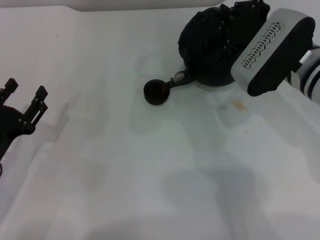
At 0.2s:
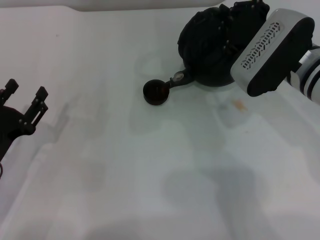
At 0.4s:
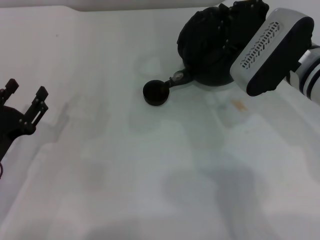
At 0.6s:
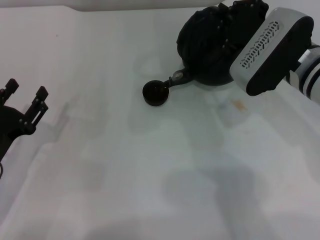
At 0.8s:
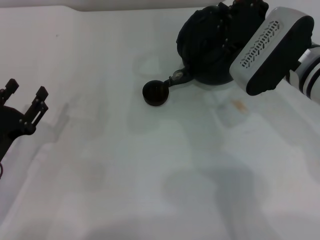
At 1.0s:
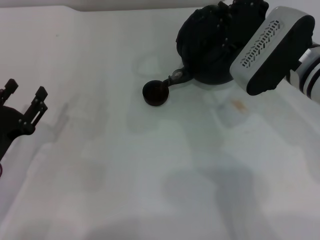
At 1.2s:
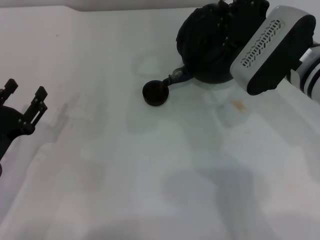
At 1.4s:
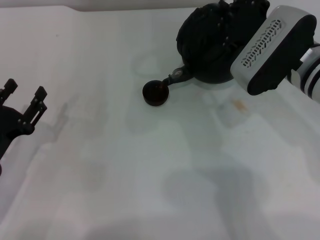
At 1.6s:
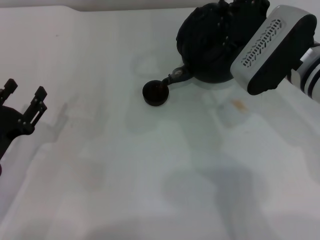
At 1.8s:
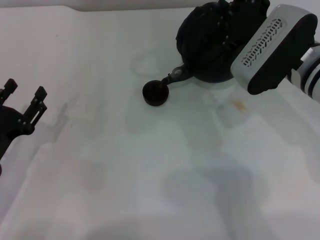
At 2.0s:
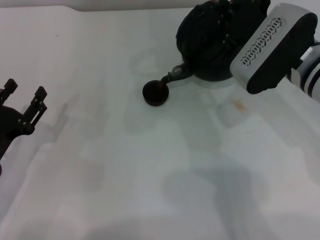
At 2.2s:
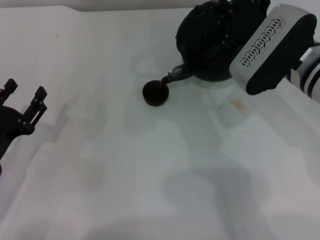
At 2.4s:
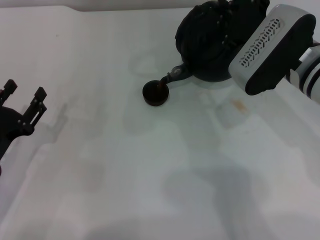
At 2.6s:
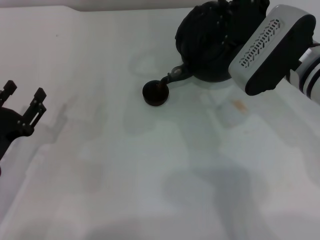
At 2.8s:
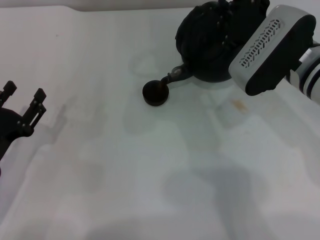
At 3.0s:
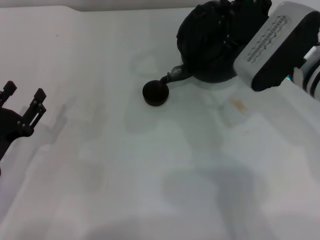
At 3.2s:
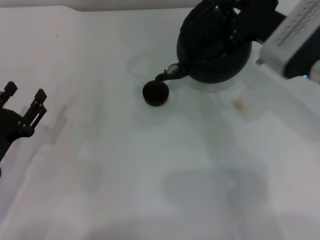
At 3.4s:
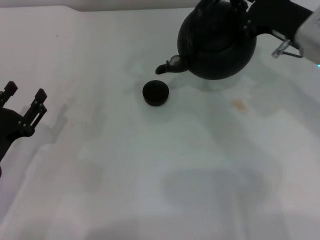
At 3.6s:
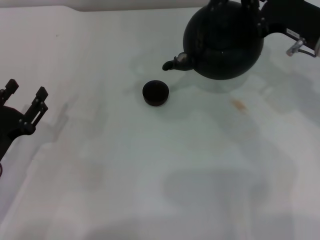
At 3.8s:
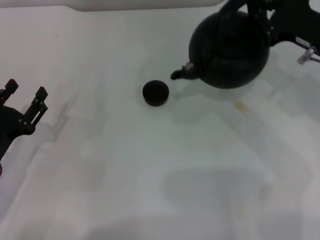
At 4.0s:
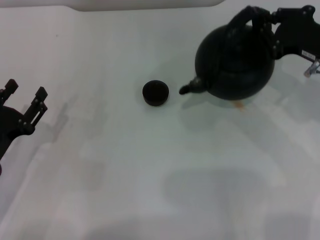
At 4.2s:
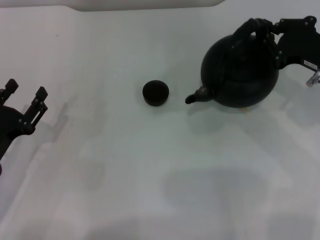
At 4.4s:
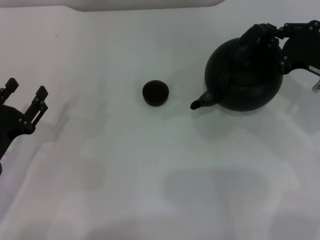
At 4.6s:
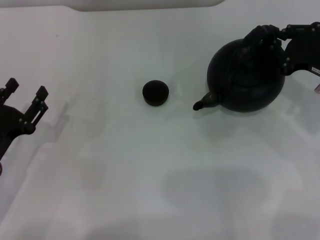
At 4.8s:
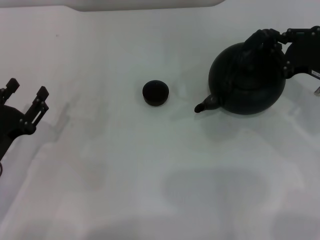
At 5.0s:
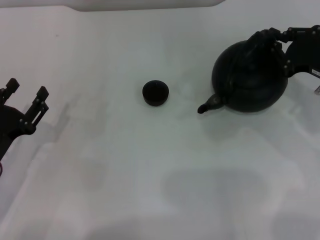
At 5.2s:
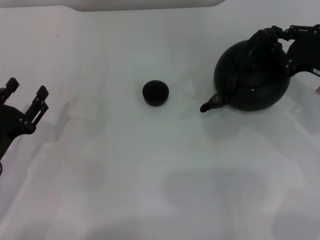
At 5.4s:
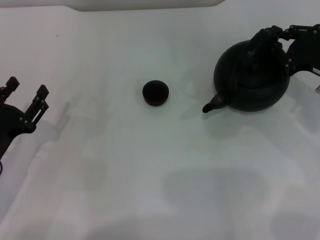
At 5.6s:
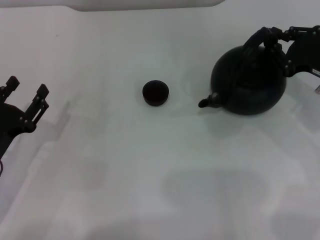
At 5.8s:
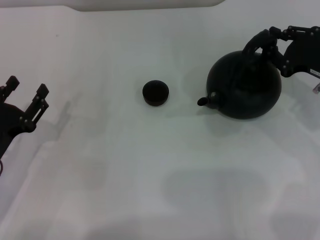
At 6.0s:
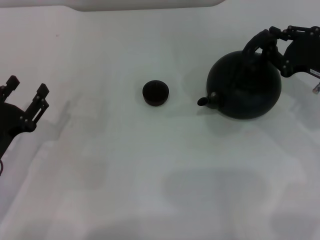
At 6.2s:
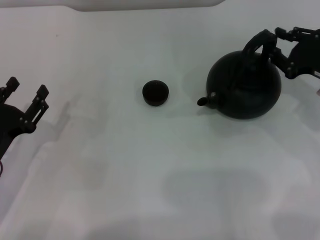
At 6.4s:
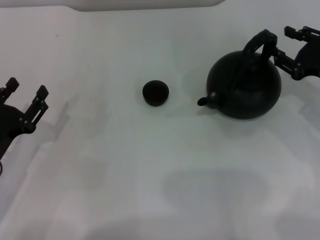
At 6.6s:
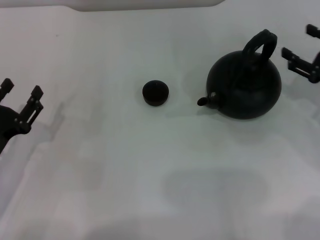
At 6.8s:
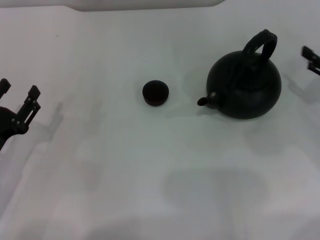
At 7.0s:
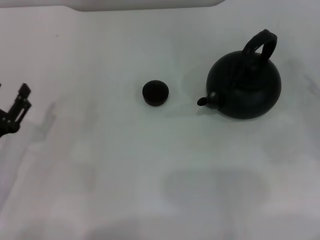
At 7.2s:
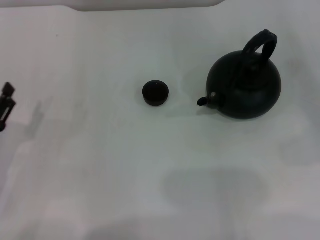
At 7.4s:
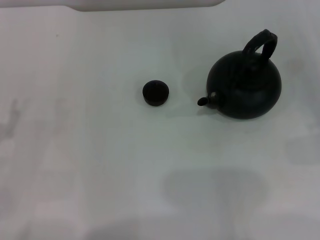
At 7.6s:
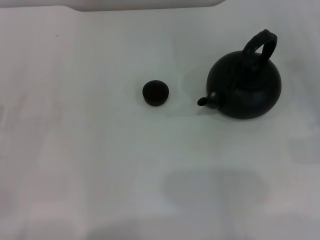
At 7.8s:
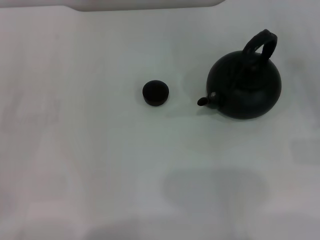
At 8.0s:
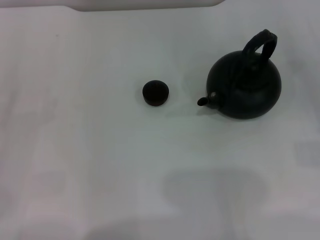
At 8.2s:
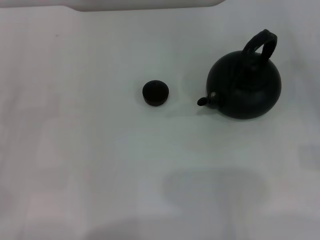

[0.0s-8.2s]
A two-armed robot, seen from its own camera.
Task of the whole recording: Grasp the handle of the teapot with one hand and pour tea into the teacup.
Step, 0.0s to 3.2s: Pour tea into the teacup with the right gripper.
Step, 3.6s to 6.4s: Put down the teapot with the right gripper.
0.0s to 1.6s: The two grippers keep their place.
1.6s to 3.2s: The grippers make only small movements.
3.2s to 5.0s: The right gripper goes approximately 10 cm to the right.
5.0s to 6.6s: The right gripper opens up.
6.6s to 8.2s: The left gripper shifts approximately 5 cm to the left, while the right gripper heads backward and to the right, covering roughly 10 cm.

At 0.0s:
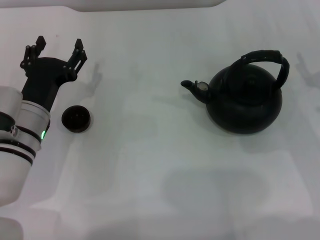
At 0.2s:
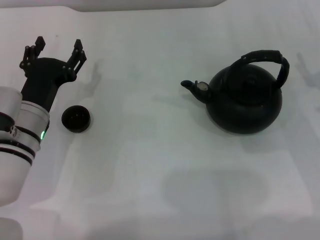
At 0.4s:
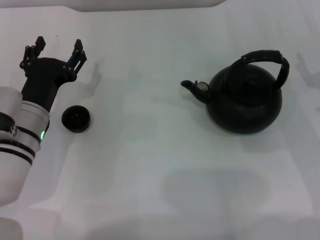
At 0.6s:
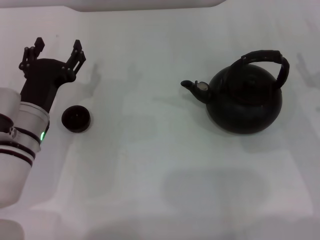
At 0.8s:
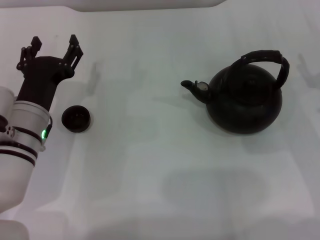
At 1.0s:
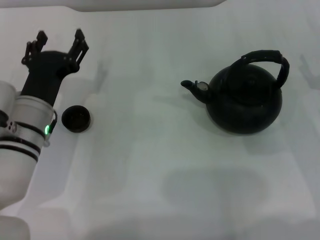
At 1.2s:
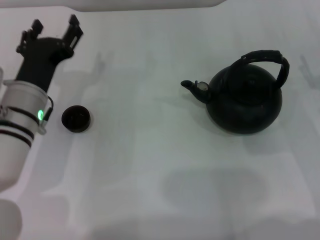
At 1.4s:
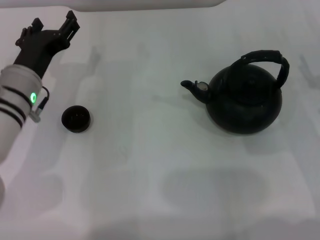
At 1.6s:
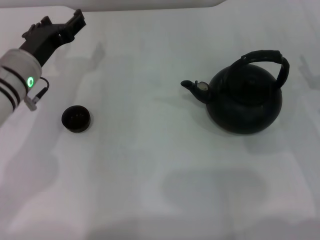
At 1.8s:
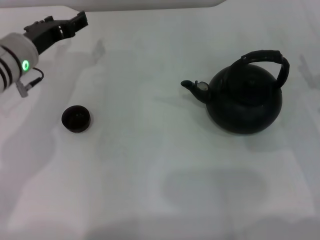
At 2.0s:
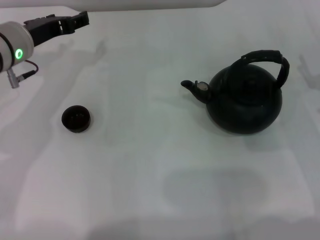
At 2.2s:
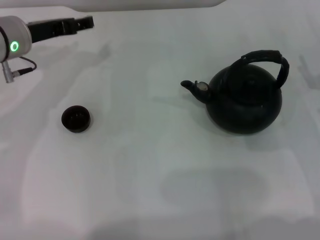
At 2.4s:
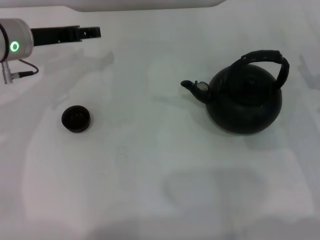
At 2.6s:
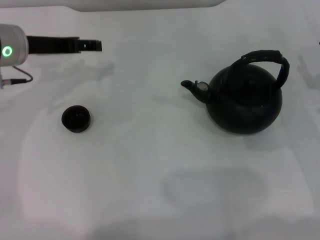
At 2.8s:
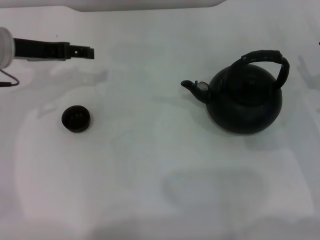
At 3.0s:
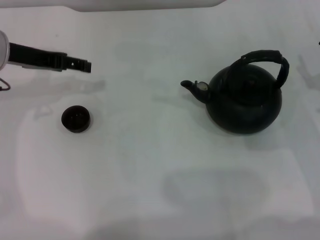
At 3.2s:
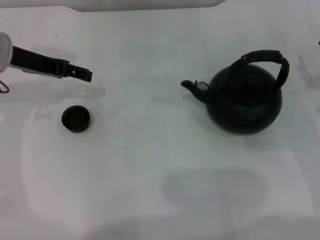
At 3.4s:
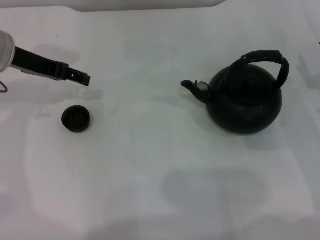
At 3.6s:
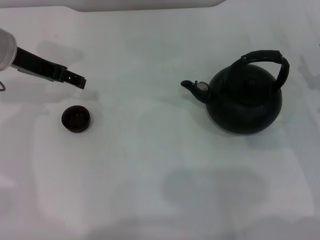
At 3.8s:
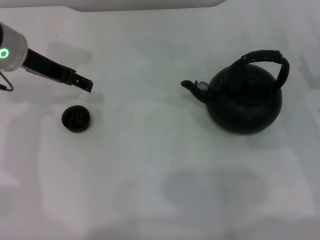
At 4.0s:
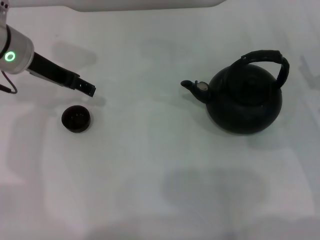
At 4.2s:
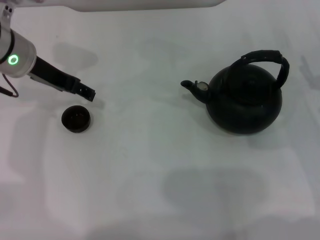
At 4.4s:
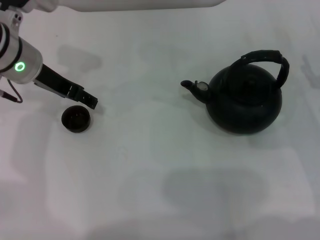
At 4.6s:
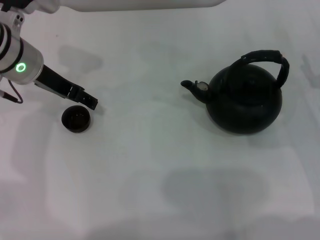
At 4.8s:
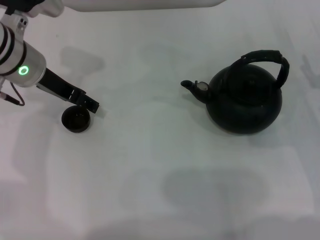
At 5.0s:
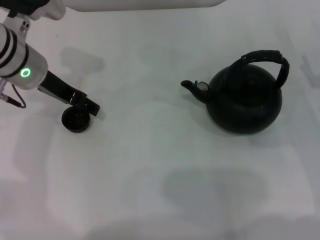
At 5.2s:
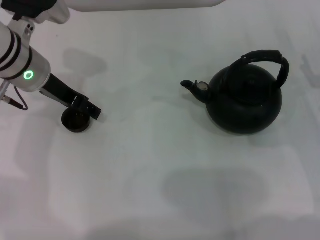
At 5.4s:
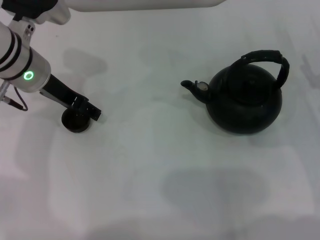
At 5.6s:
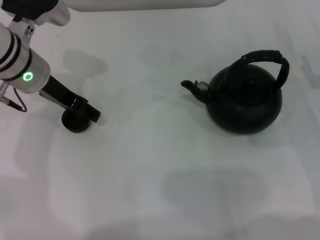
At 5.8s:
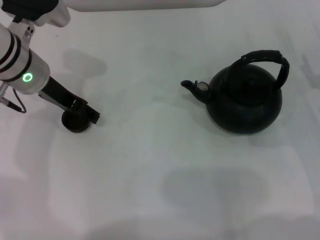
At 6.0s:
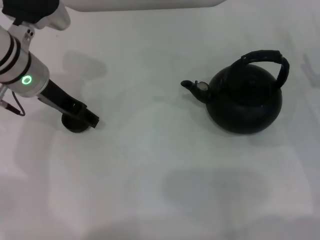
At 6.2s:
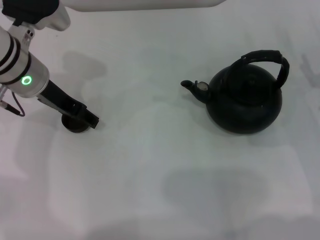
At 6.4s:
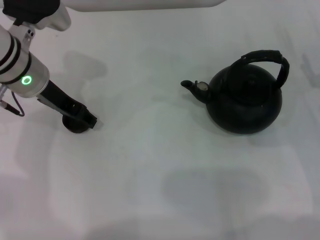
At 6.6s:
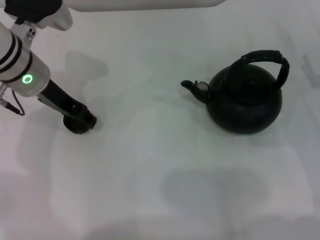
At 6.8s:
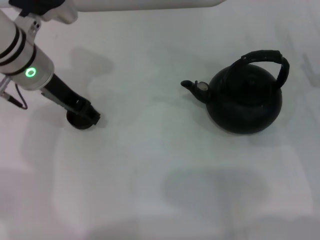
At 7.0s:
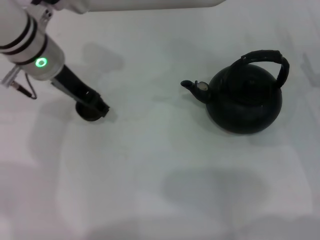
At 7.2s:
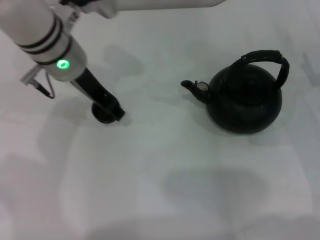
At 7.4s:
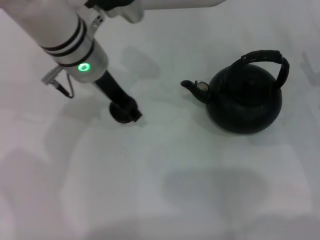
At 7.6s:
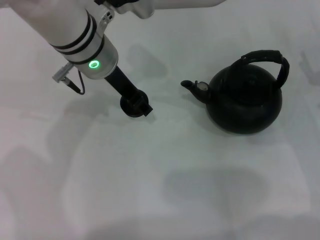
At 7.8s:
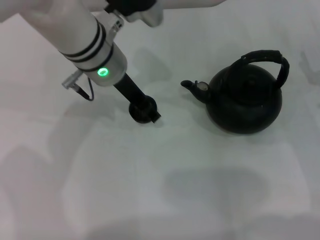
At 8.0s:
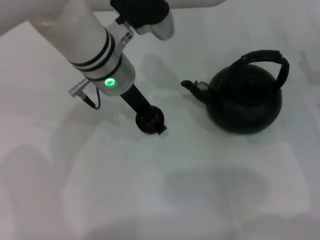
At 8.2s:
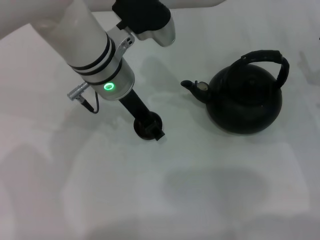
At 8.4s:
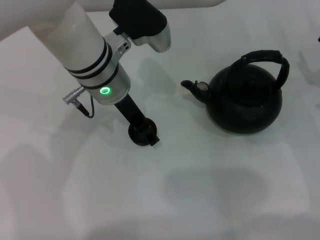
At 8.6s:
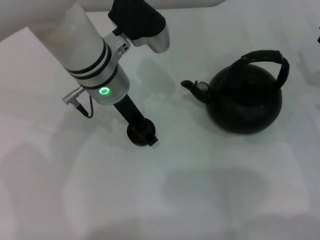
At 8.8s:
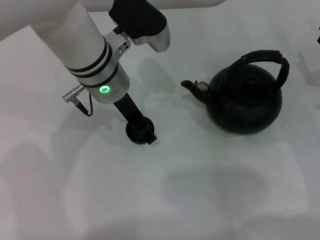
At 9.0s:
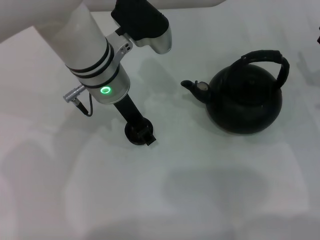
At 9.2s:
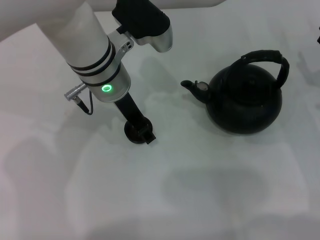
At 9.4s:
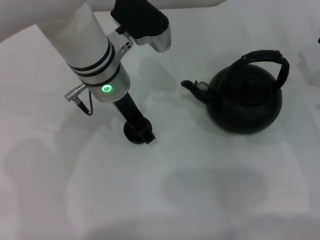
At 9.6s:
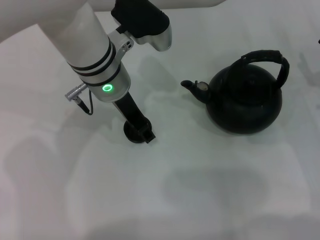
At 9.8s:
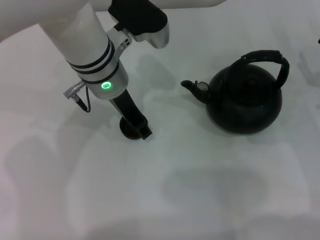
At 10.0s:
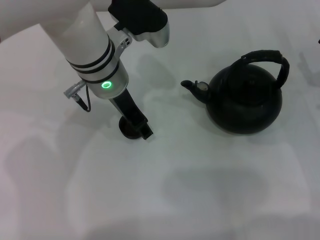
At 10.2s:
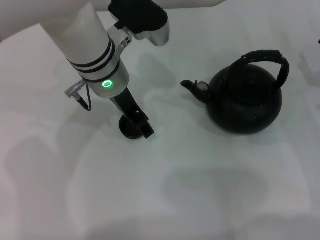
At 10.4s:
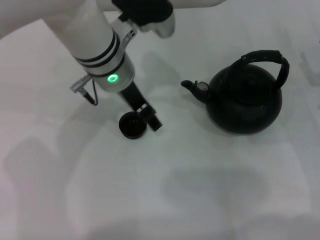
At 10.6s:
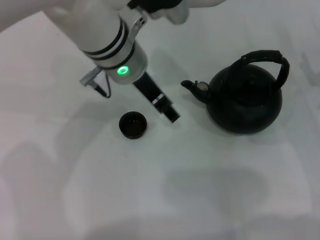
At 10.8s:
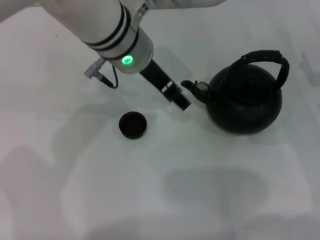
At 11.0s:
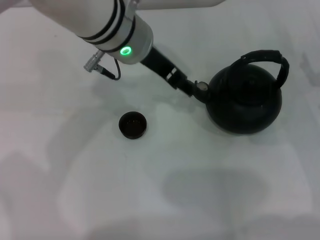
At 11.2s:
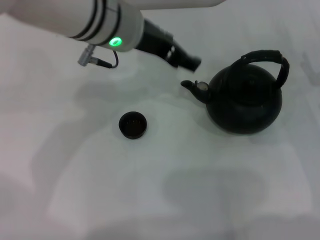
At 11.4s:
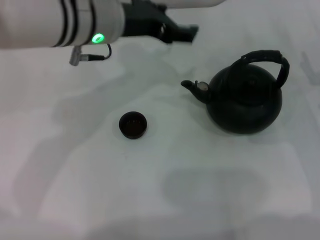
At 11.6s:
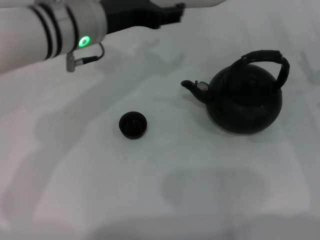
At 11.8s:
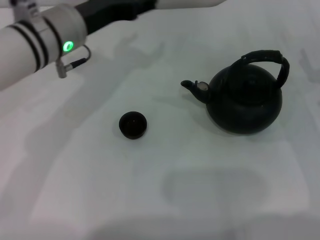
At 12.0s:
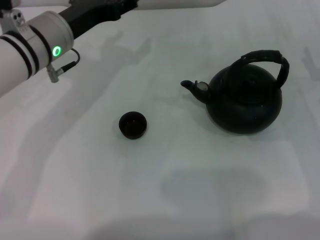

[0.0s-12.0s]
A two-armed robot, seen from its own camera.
Task of the whole recording: Grasp the handle of the teapot with one hand and pour tea into the teacup.
Step, 0.0s to 6.8s: Pick up the teacup with the left gripper.
Step, 7.0s to 10.6s: Place the teacup in the center of view with the left gripper.
0.0s to 1.6s: The left gripper moves upward and forward, roughly 10 cm.
1.6s to 3.0s: The left gripper shifts approximately 5 cm upward.
4.4s to 6.0s: The grippers move only a little.
6.0s to 7.6s: The left gripper travels to the right by approximately 10 cm, and closes its fingers.
7.6s to 9.0s: The grippers stay close to where they were, moving slightly.
9.0s to 10.4s: The left gripper opens its fingers.
10.4s to 12.0s: The left gripper travels to the left by about 10 cm.

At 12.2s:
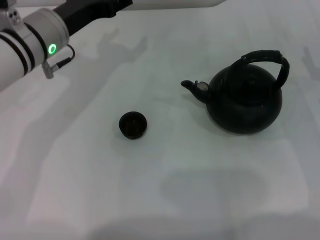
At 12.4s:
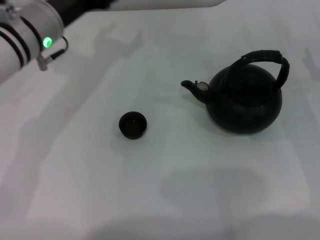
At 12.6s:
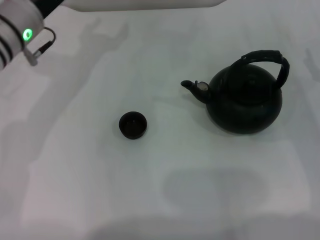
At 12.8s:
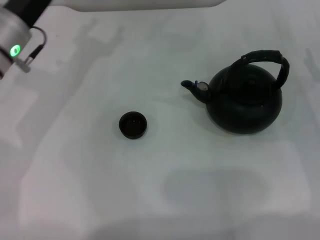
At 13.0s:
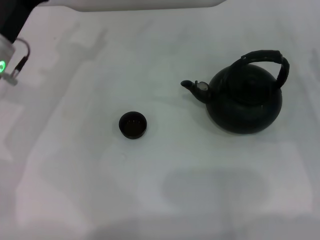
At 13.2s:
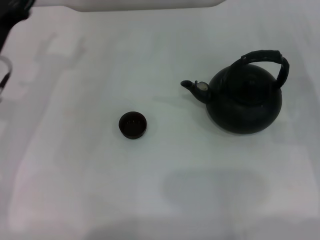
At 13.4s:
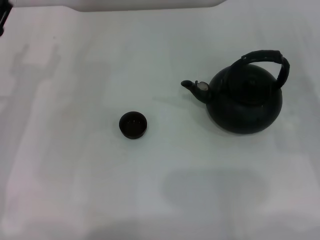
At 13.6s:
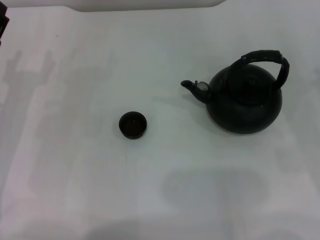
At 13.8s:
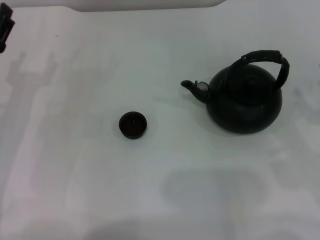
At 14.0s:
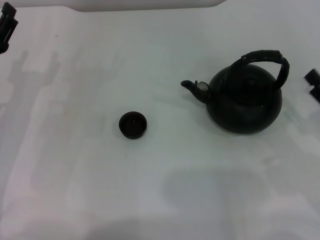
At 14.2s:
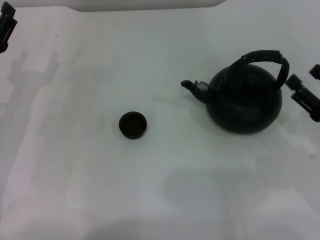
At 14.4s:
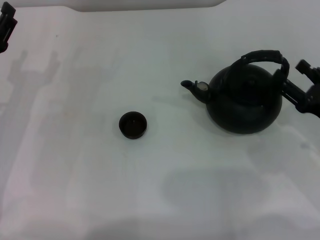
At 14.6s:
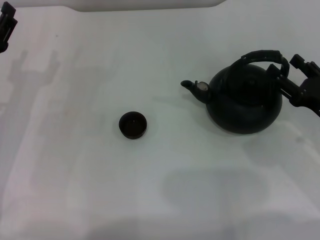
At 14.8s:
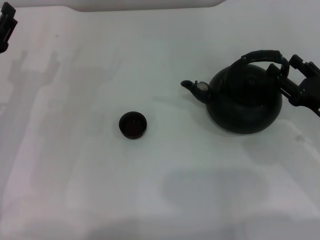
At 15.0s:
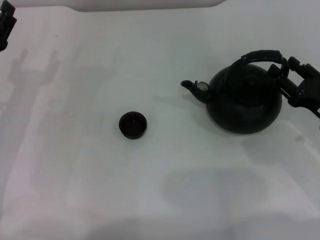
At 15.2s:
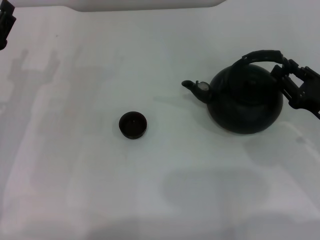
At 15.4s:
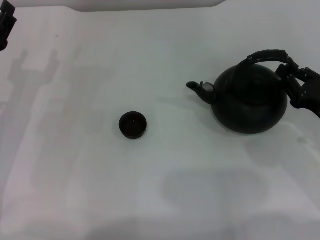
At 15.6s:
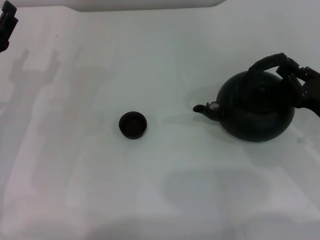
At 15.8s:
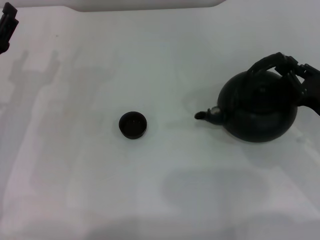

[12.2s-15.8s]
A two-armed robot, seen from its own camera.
Task of the whole recording: Grasp the handle of the teapot with one hand and pour tea into the teacup.
12.2s to 14.0s: The left gripper goes roughly 15 cm to the left, downward and backward. The right gripper goes roughly 10 cm backward.
14.0s to 15.8s: The right gripper ends up about 5 cm from where it was, and closes up.
